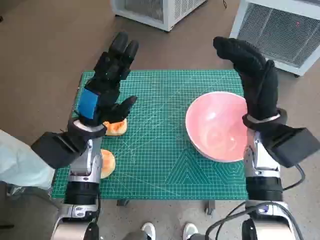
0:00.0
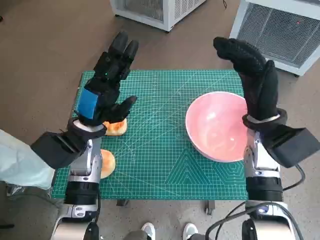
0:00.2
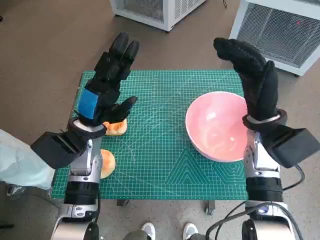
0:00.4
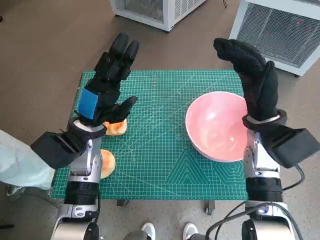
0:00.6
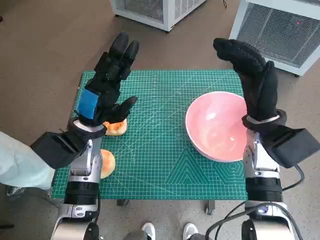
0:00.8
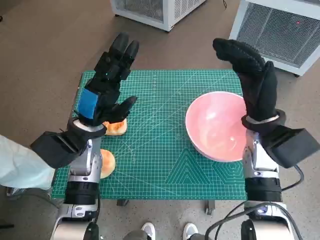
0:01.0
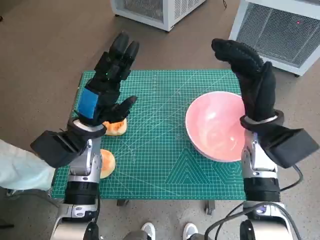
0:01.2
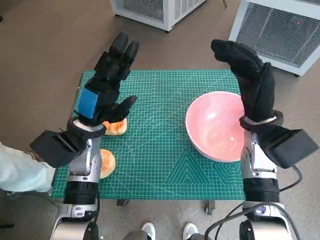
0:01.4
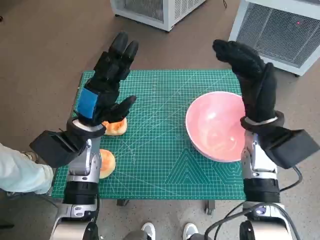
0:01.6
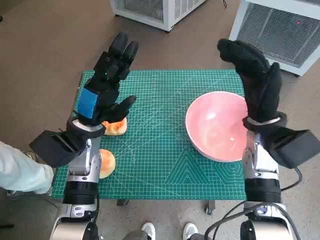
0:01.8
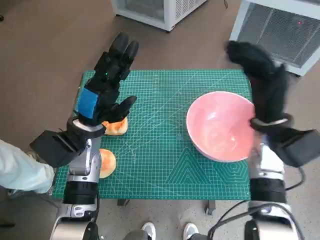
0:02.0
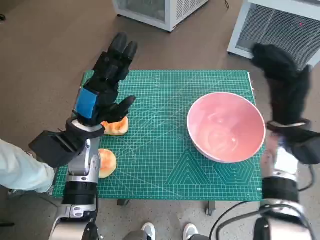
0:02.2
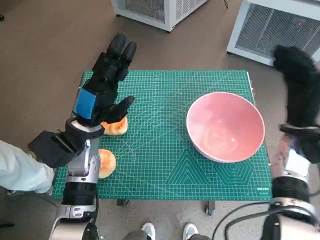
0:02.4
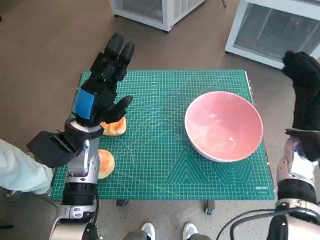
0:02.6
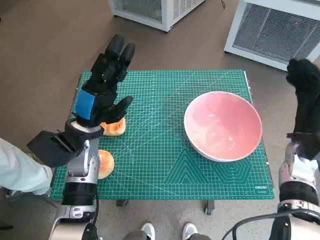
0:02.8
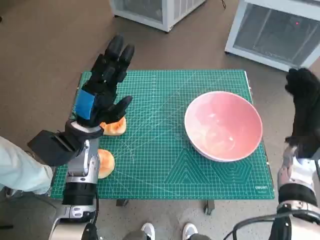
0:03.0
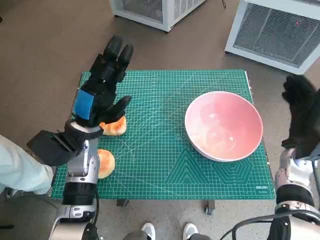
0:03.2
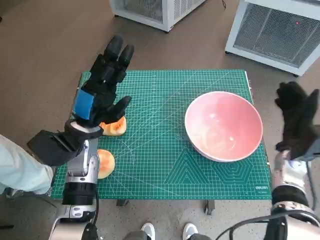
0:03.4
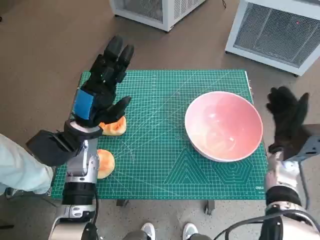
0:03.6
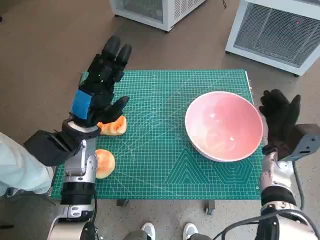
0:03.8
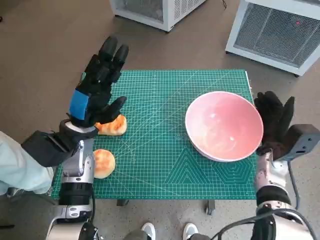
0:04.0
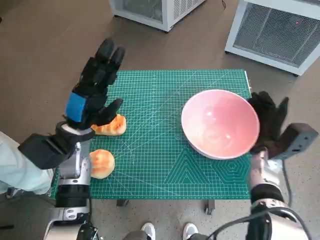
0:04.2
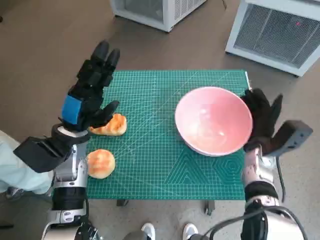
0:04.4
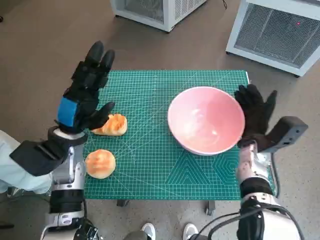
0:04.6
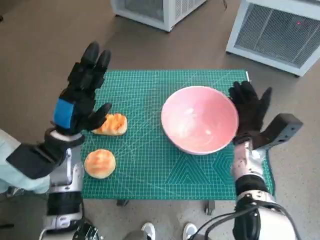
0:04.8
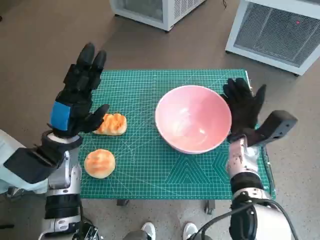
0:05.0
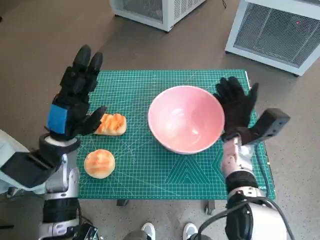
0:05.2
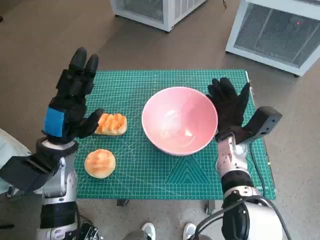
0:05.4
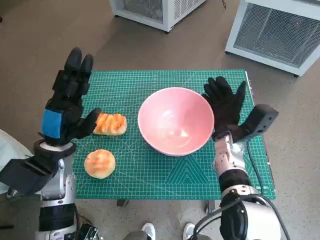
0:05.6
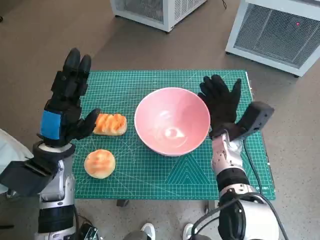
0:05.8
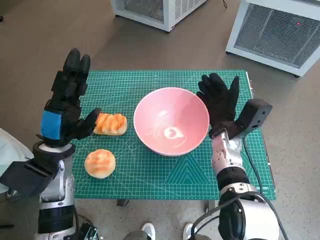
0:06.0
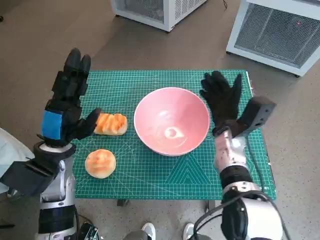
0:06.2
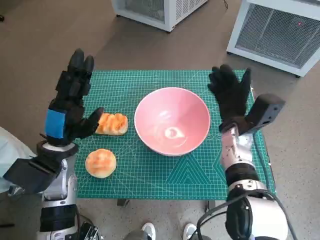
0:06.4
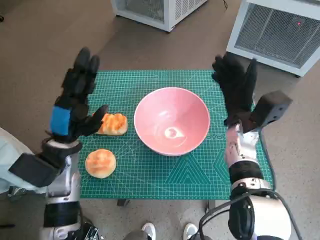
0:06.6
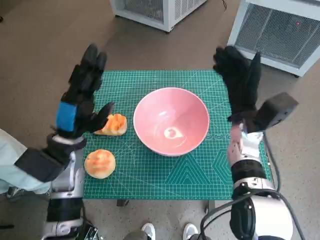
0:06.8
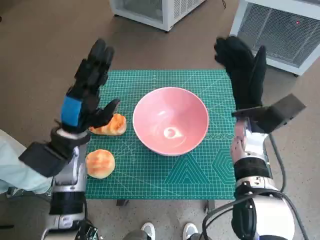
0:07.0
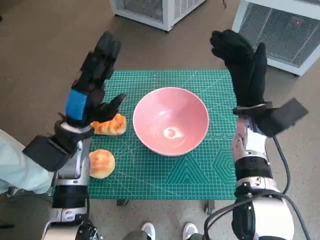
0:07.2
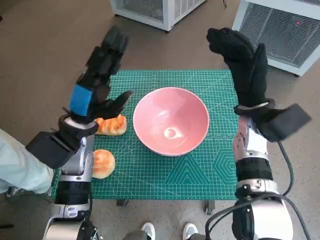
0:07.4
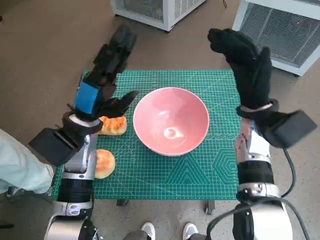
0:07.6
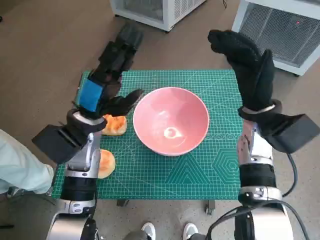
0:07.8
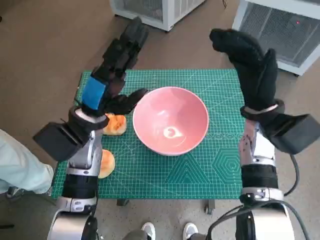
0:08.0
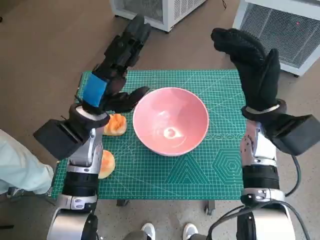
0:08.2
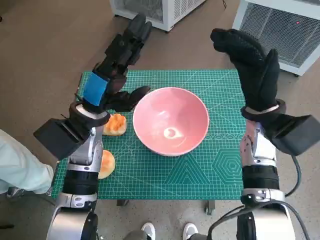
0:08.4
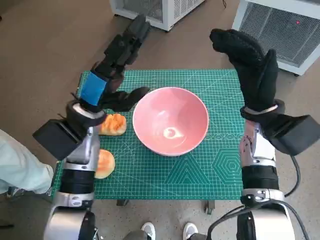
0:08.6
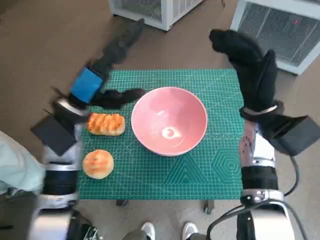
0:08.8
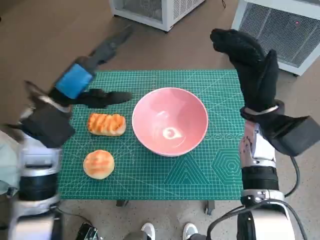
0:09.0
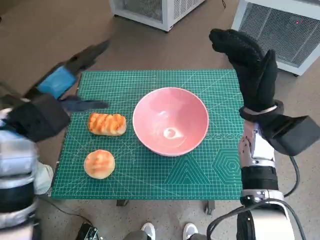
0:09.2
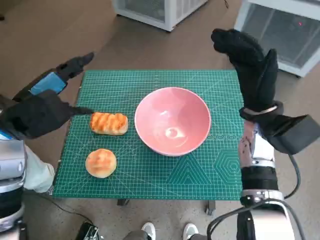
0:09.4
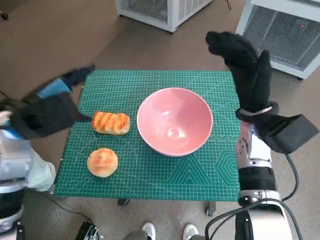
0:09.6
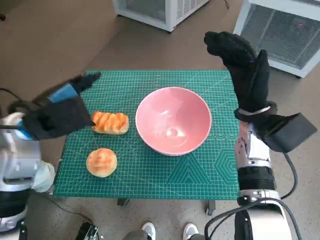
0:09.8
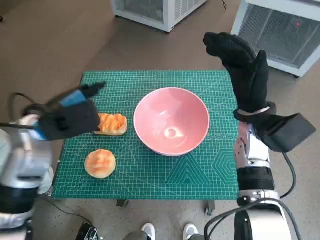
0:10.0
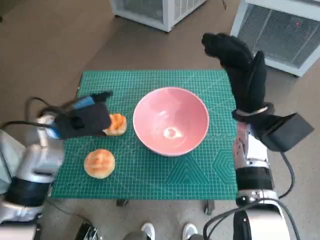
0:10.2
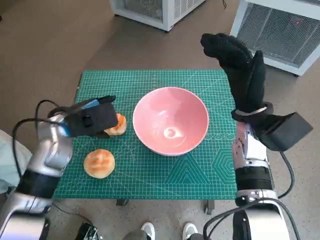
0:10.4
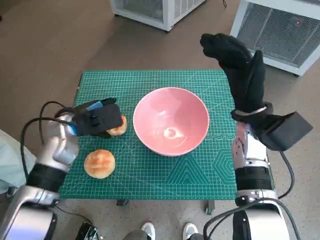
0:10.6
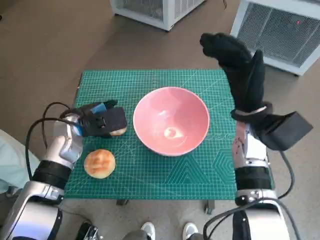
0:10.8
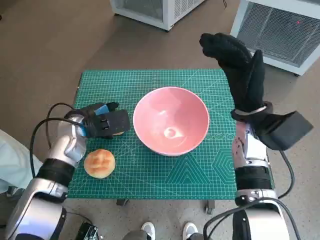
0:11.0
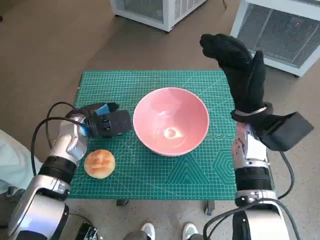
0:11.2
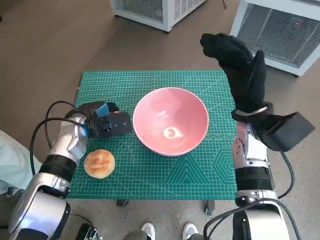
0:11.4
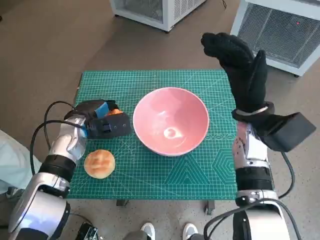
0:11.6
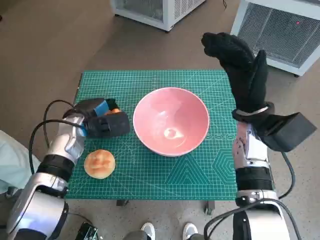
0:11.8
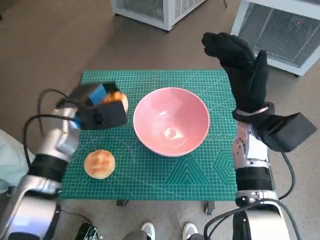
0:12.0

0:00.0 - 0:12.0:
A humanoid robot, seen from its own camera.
Task of the whole recording: Push the bowl into the center of the table and put the bread into the bowl.
Step, 0:00.0 - 0:06.2: Move the pink bowl to the center of table with right hand.
Step, 0:06.4 - 0:11.4: Grasp the long bread with left hand.
0:01.6 - 0:03.0: The right hand moves to the right and downward, some 10 cm.
0:03.0 - 0:04.4: The right hand heads to the left, covering roughly 5 cm.
0:04.4 - 0:06.0: The right hand shifts approximately 10 cm to the left.
0:06.0 - 0:07.6: The left hand shifts by roughly 5 cm; the right hand goes roughly 10 cm upward.
0:07.6 - 0:09.0: The left hand heads upward, covering roughly 5 cm.
0:09.0 - 0:10.4: The left hand heads downward, covering roughly 5 cm.

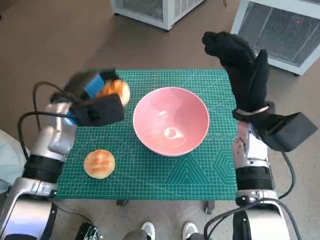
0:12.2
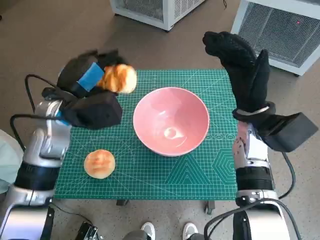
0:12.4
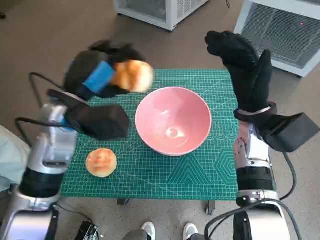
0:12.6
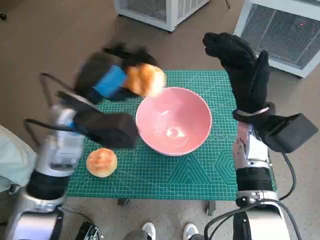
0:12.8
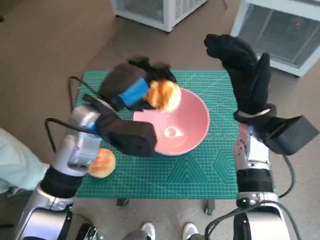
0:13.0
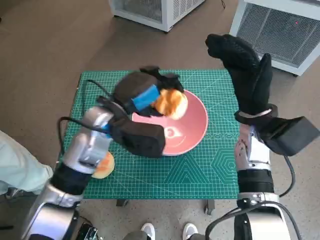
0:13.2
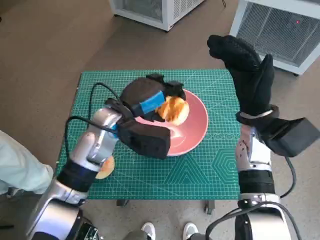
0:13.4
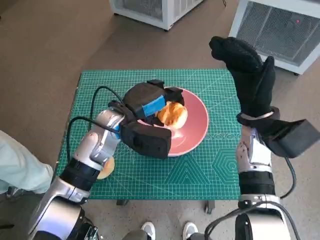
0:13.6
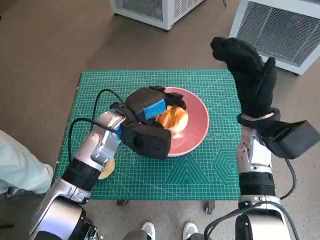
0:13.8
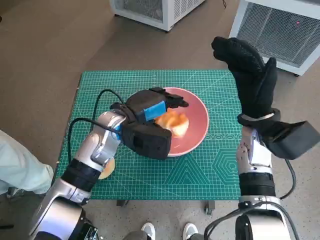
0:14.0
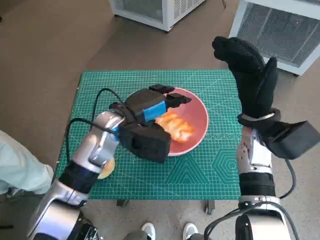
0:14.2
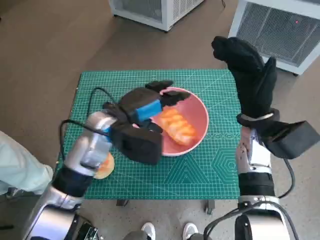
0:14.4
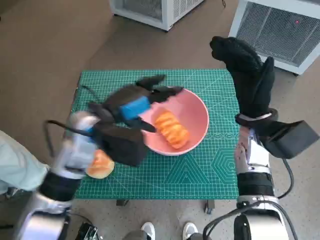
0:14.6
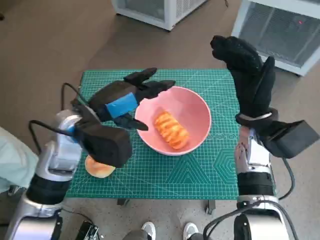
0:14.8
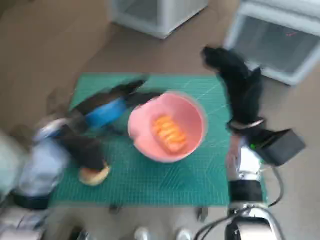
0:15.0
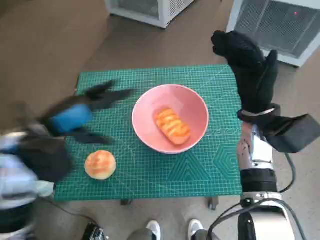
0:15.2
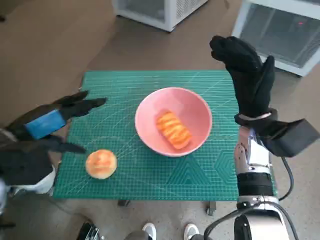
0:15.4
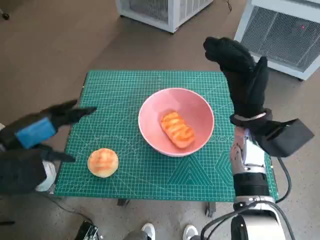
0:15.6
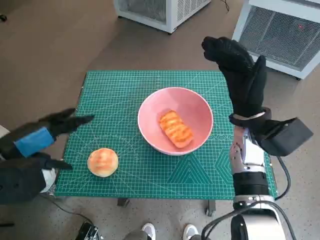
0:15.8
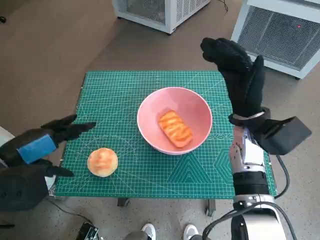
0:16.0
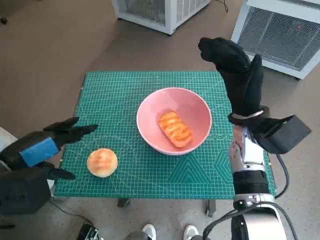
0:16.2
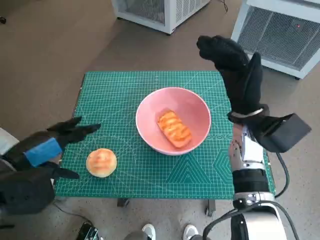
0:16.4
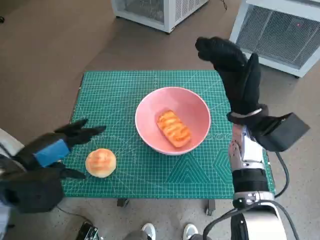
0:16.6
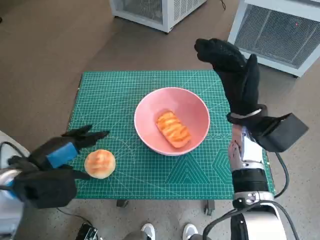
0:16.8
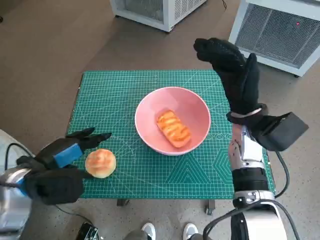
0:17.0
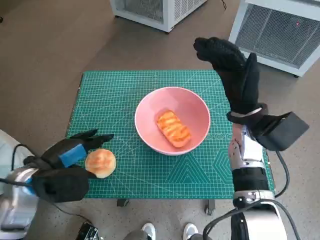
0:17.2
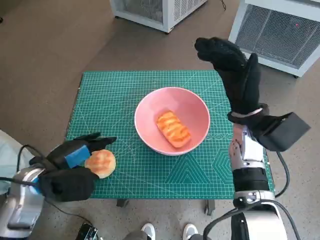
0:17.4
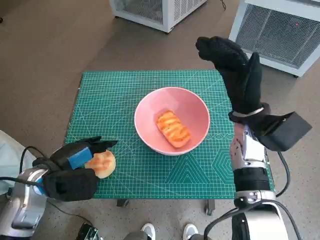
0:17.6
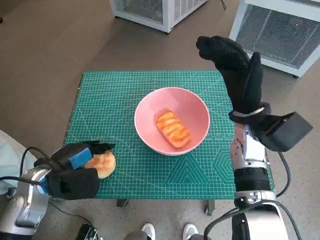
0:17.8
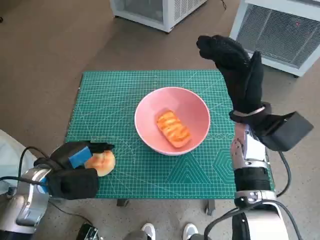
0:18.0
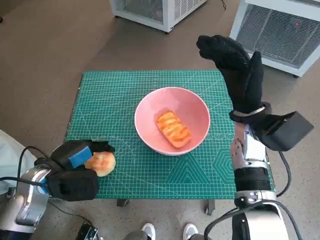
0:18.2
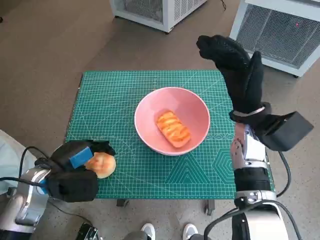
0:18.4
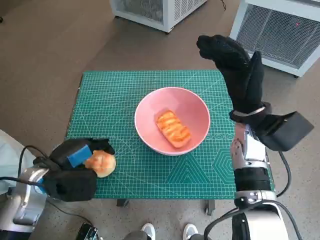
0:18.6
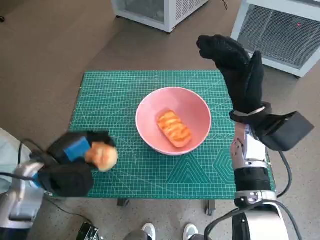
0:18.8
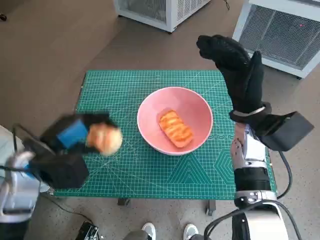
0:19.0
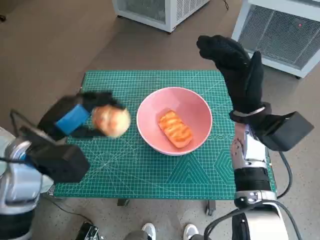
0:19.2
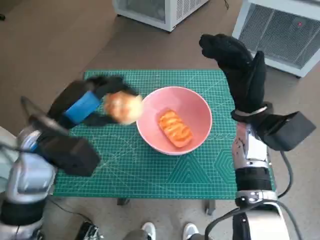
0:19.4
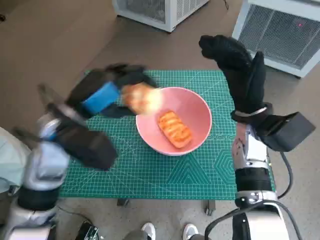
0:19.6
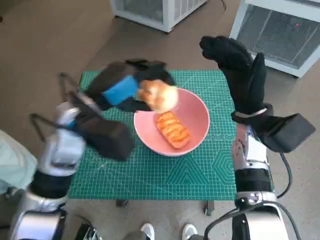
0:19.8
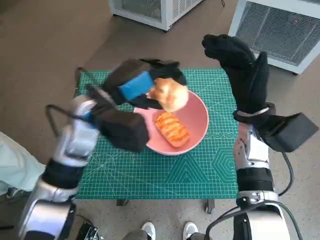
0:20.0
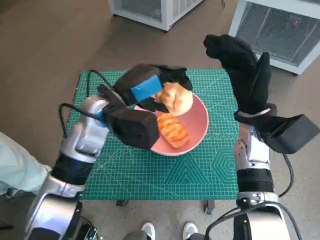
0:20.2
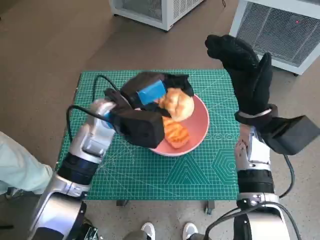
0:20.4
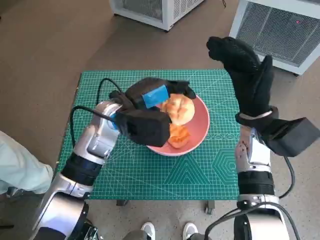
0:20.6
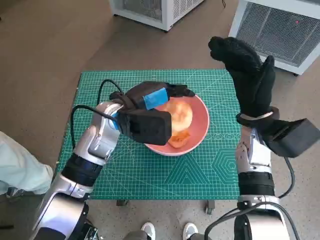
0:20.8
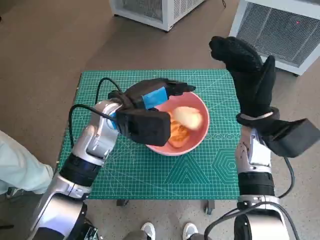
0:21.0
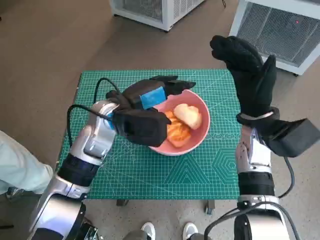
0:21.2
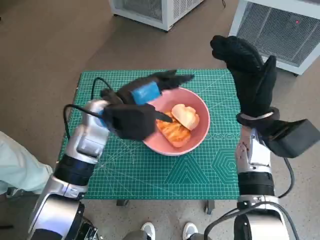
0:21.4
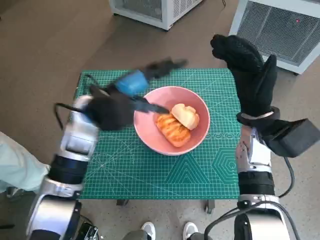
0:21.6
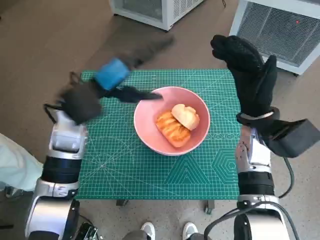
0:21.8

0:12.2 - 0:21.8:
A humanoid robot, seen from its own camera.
Task of the whole recording: Push the bowl into the center of the table and put the bread into the bowl.
Step, 0:12.2 - 0:14.4: Place the long bread in pink bowl with left hand.
Step, 0:14.6 - 0:17.8: Grasp the round bread with left hand.
Step, 0:18.2 - 0:21.2: Place the round bread in pink bowl with left hand.
0:12.2 - 0:13.8: The left hand moves to the right, some 10 cm.
0:13.8 - 0:15.4: The left hand shifts about 20 cm to the left, backward and upward.
0:15.4 - 0:17.0: The left hand travels downward by about 10 cm.
0:17.0 - 0:18.6: The hands move only a little.
0:18.6 - 0:20.2: The left hand is displaced to the right, upward and forward by about 20 cm.
